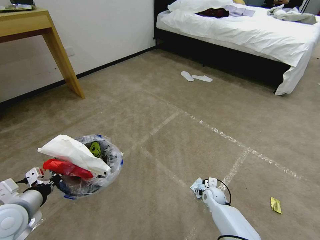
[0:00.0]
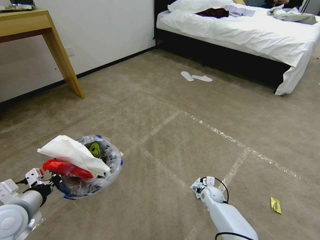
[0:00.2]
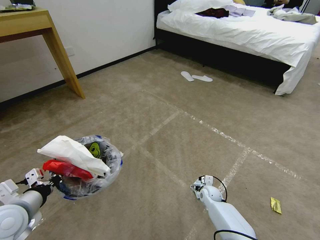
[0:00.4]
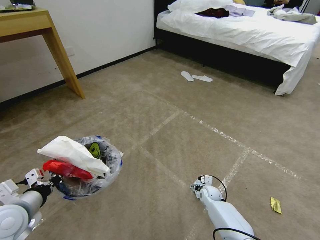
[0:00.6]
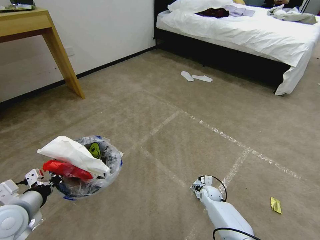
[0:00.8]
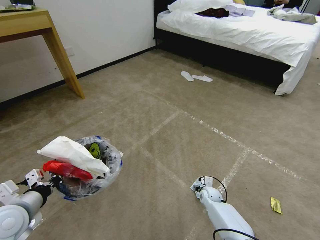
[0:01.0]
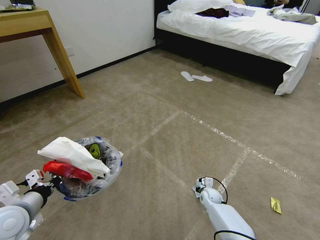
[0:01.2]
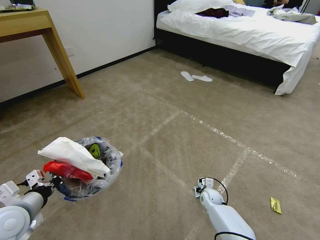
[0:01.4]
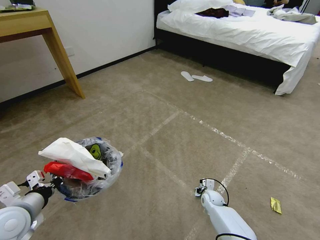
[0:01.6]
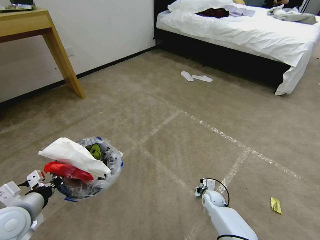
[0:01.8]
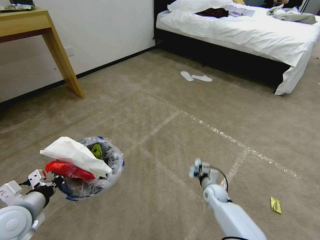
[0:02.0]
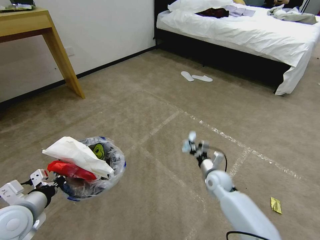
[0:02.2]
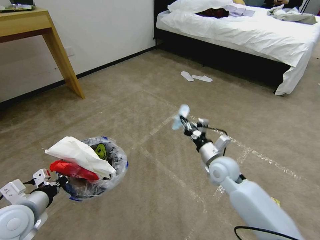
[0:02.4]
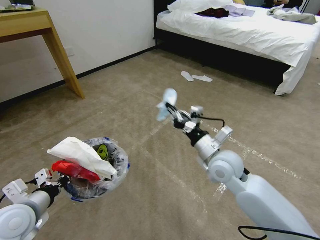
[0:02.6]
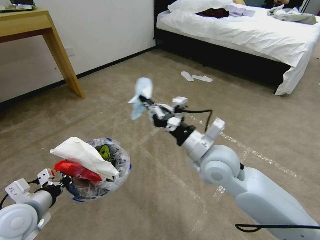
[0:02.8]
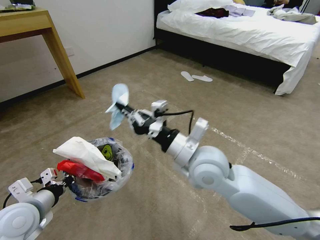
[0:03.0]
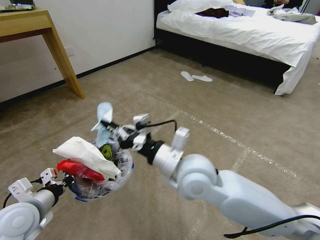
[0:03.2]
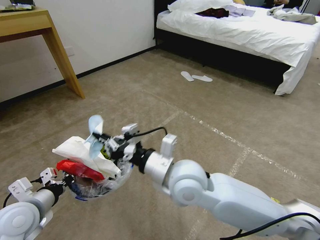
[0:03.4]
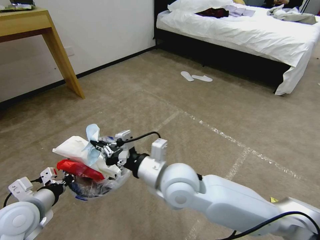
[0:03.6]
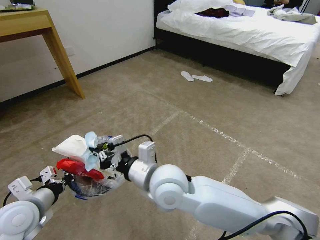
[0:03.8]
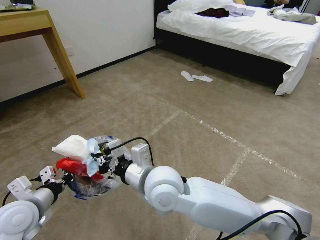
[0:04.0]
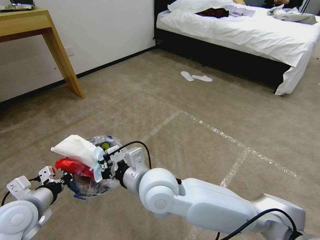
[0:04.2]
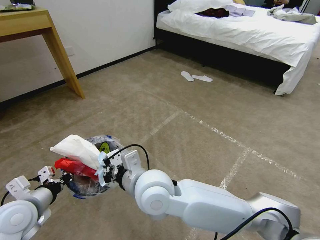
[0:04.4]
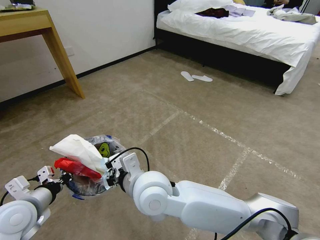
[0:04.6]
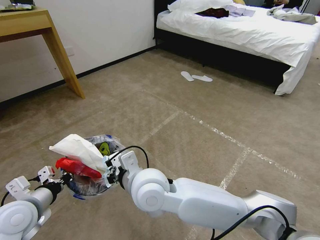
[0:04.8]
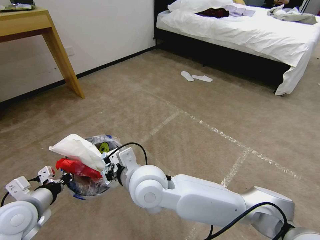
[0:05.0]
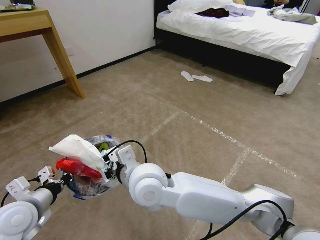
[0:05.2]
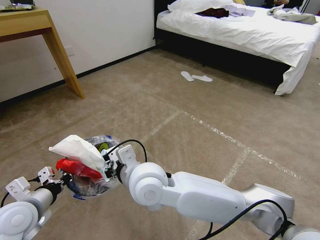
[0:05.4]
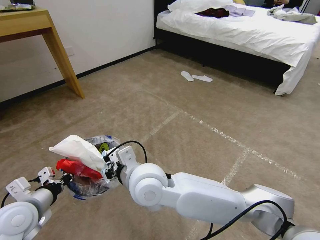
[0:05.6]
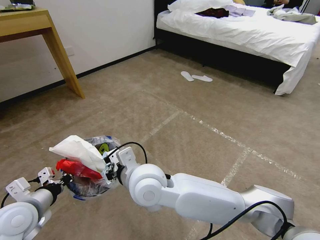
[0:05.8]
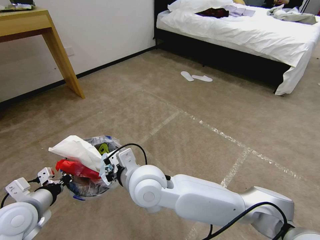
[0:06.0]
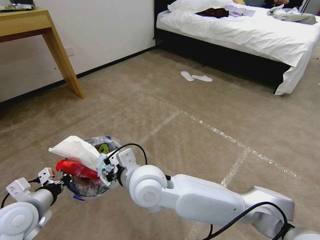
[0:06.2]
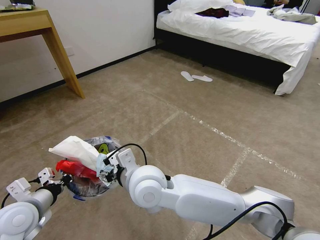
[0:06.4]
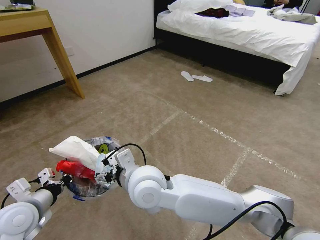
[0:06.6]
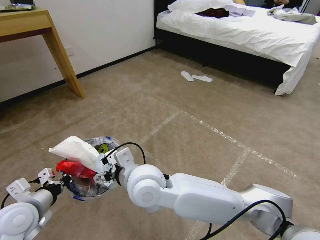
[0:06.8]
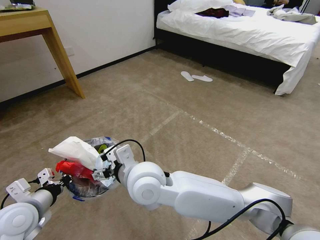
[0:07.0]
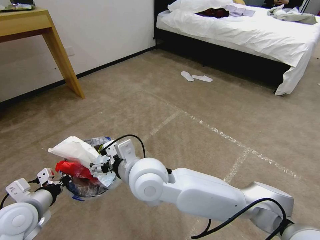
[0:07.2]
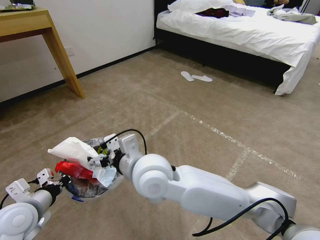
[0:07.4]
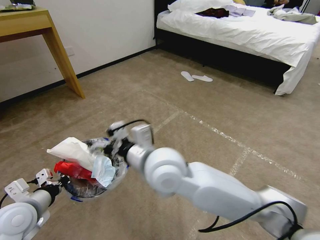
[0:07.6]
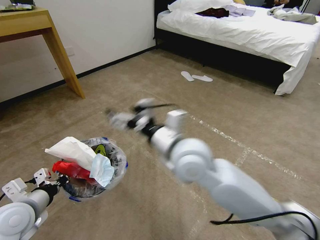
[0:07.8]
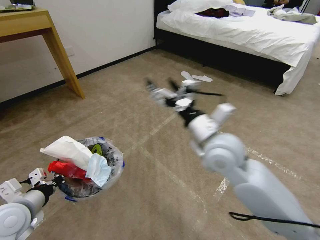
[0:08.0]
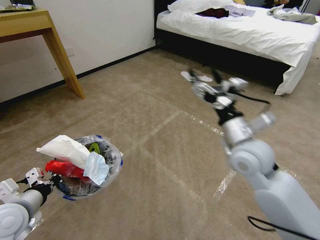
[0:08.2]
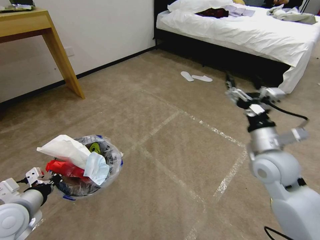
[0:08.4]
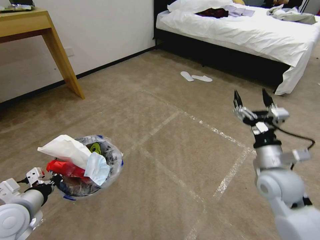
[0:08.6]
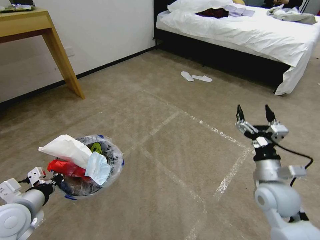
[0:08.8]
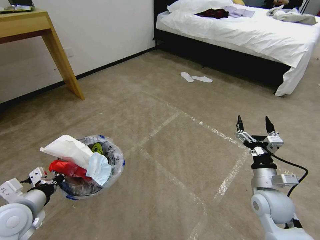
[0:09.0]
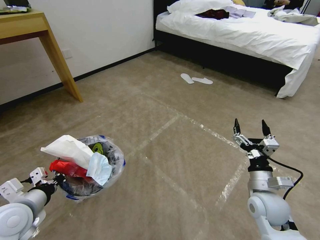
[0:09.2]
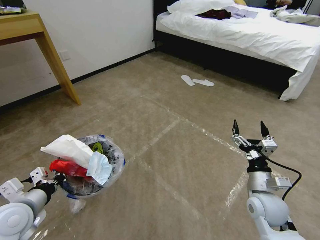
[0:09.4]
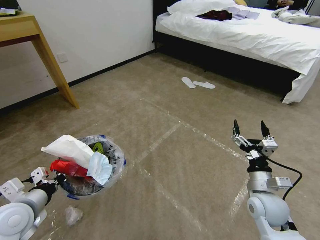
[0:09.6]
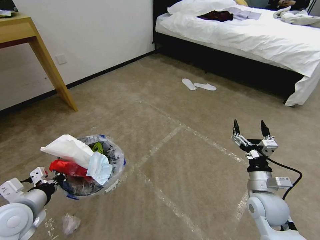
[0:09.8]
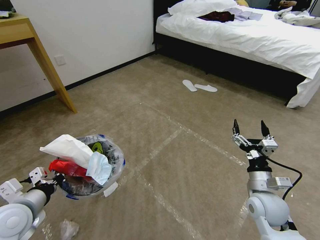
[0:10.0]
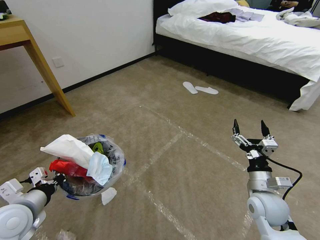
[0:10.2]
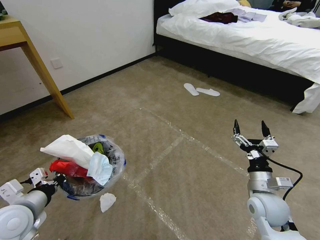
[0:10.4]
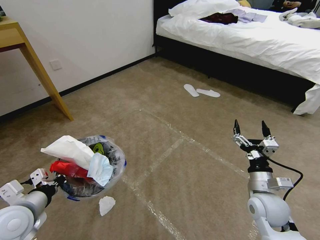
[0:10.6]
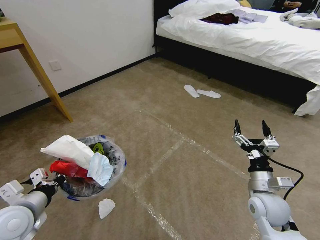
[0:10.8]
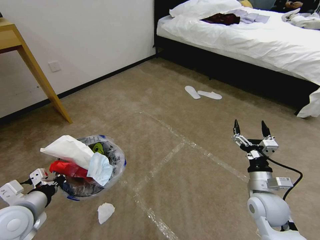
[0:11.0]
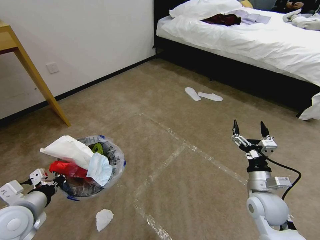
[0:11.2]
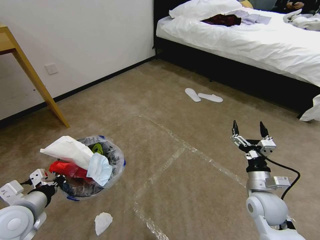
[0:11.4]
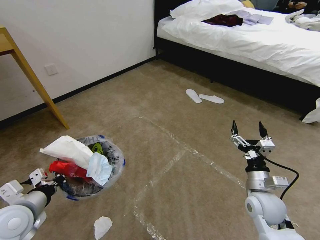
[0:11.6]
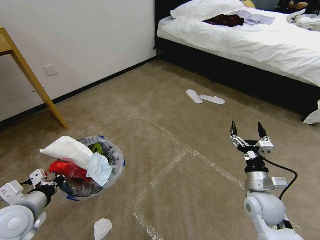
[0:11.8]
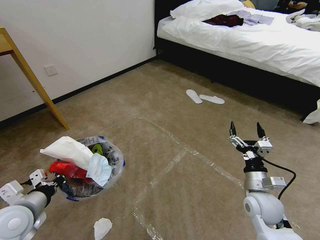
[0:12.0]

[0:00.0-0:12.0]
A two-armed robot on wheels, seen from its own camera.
Task of the whole recording: Pick up the trash bin and place the garbage on the floor into it.
0:00.0 to 0:01.6: The right gripper closes its fingers.
0:01.6 to 0:03.0: The right gripper goes some 40 cm upward.
0:03.0 to 0:04.4: The right gripper shifts about 15 cm to the left.
0:04.4 to 0:06.0: The grippers stay close to where they were, moving slightly.
0:06.0 to 0:07.6: The right gripper travels upward by approximately 5 cm, and opens.
0:07.6 to 0:09.0: The right gripper is displaced to the right and downward by approximately 35 cm.

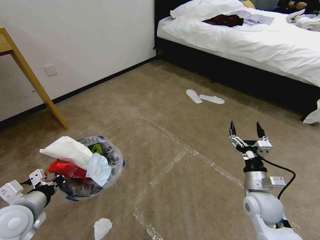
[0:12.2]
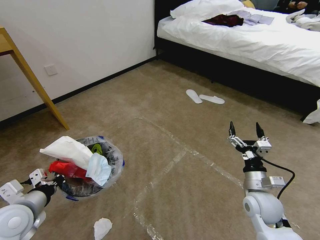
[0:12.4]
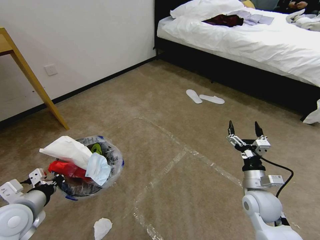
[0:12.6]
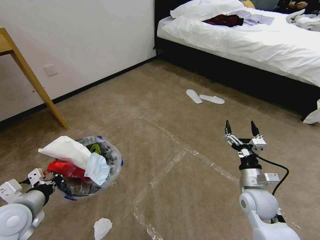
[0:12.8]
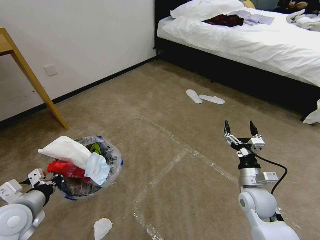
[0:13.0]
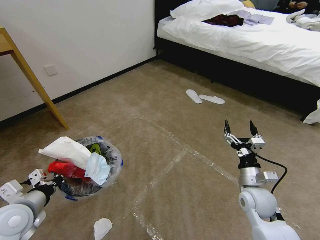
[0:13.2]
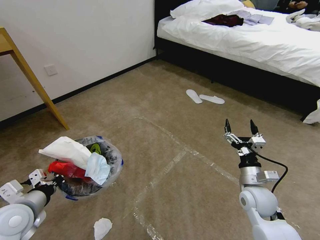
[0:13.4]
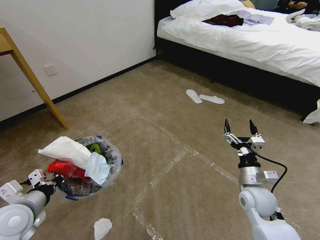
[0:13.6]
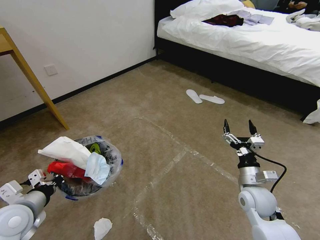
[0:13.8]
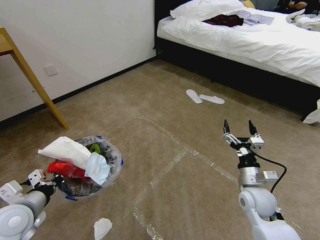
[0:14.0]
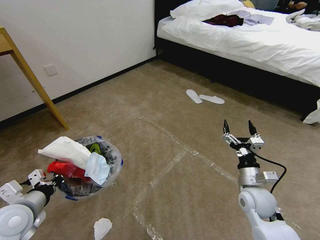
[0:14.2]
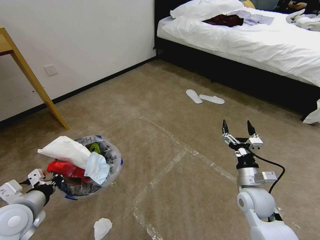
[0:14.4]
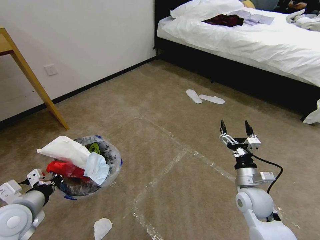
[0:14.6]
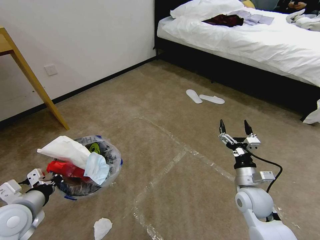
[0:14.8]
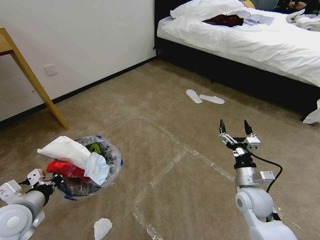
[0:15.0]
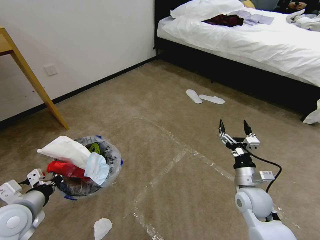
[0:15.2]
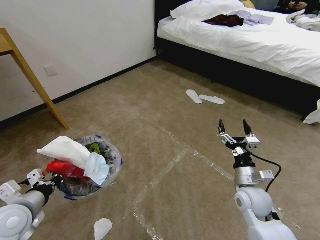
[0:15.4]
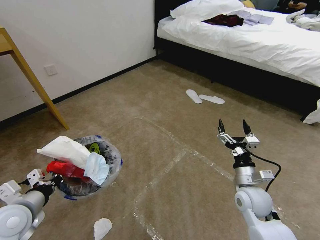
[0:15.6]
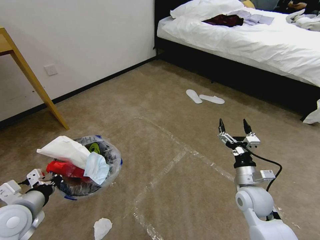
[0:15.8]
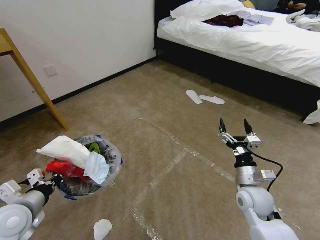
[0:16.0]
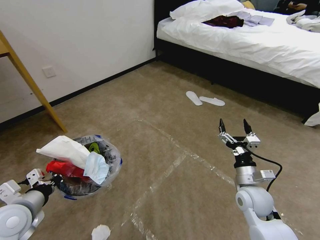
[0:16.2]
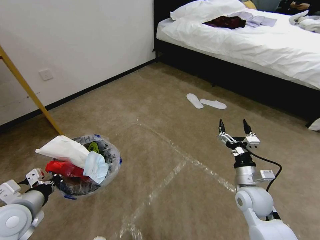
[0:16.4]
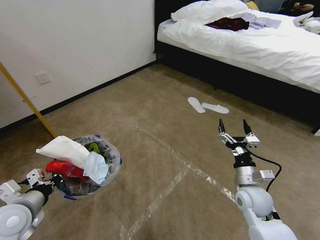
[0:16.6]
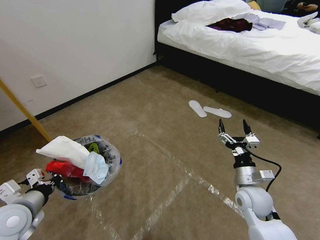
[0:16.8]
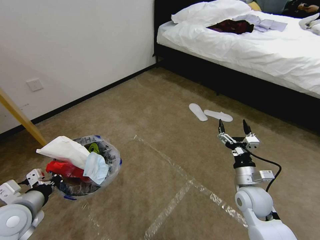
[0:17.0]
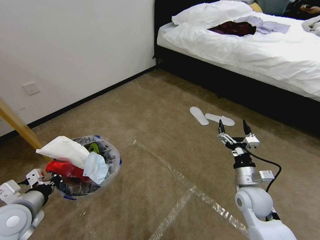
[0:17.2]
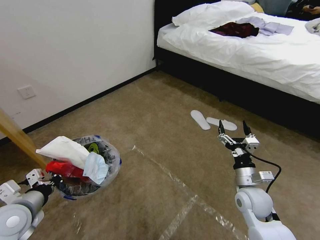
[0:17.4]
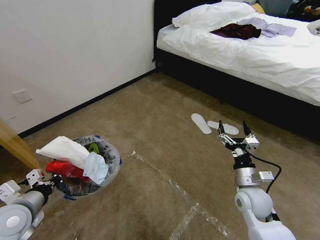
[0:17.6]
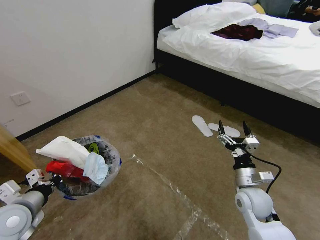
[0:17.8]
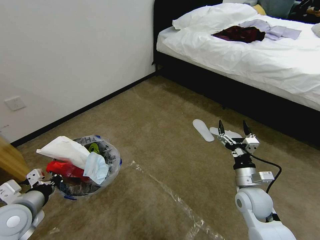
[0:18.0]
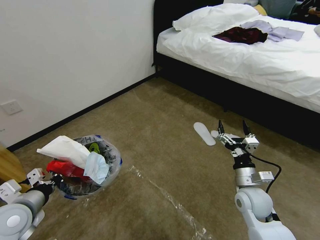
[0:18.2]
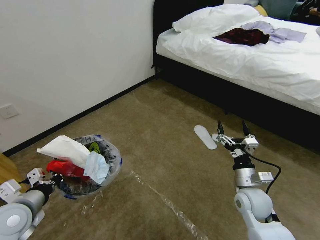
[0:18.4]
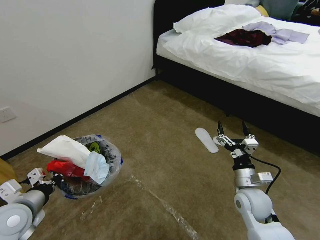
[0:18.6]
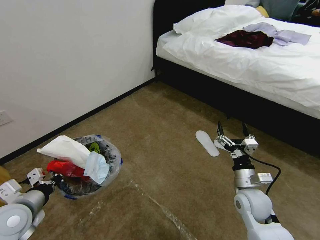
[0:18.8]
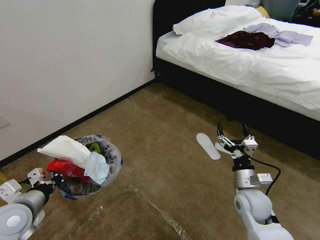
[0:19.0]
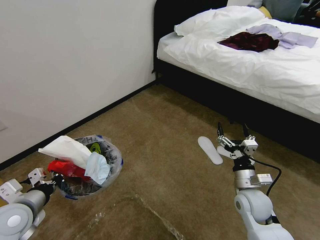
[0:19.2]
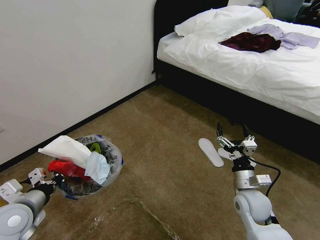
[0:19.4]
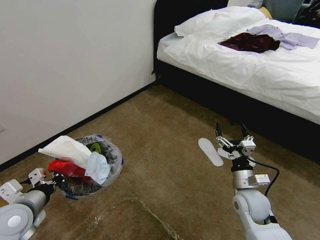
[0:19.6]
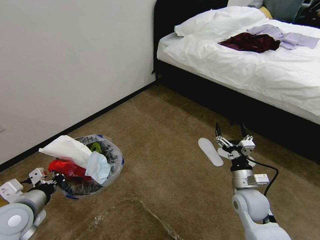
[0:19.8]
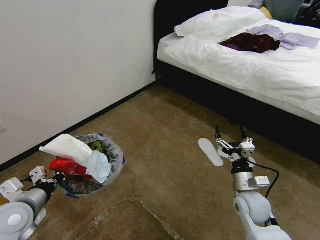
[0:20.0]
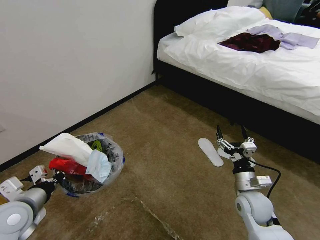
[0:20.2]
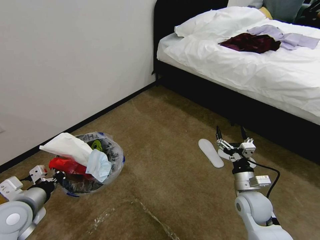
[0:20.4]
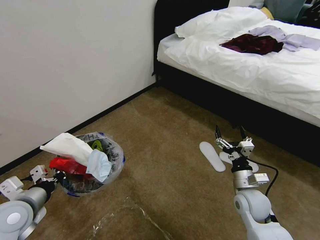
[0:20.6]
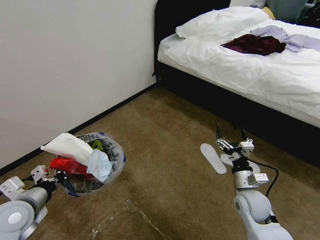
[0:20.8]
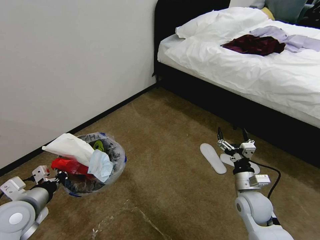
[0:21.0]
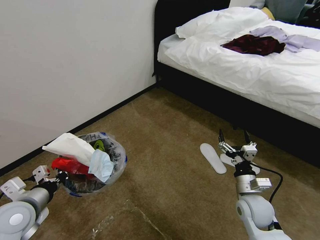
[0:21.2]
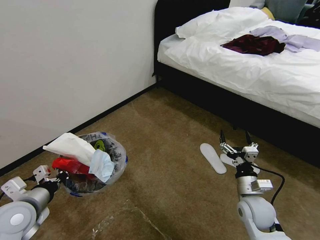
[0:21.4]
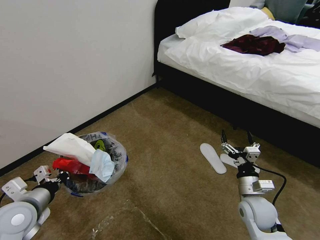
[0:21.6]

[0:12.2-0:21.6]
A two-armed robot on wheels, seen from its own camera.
Task of the whole recording: Pick up the trash bin and place the garbage on the floor into it.
0:12.2 to 0:15.4: There are only small adjustments of the grippers.
0:20.0 to 0:21.6: The grippers move only a little.

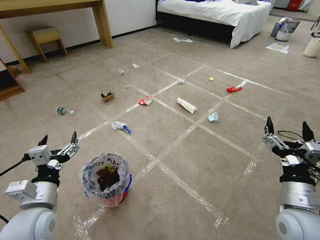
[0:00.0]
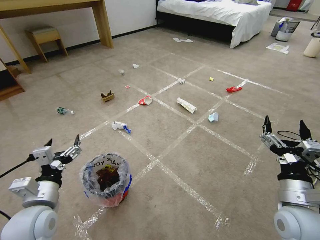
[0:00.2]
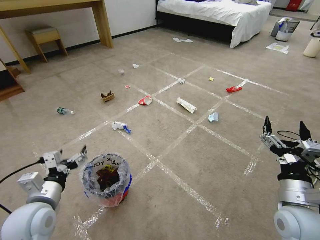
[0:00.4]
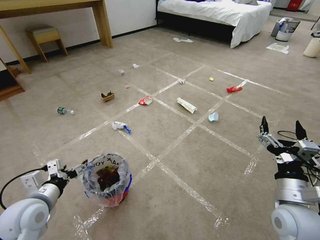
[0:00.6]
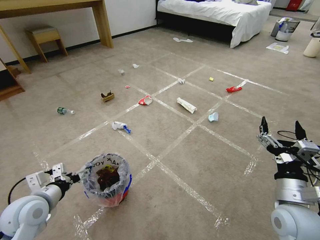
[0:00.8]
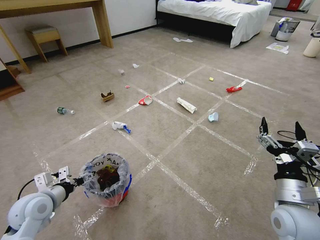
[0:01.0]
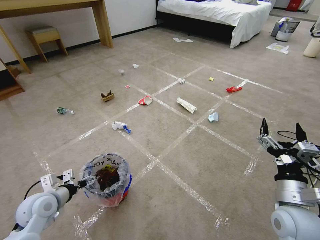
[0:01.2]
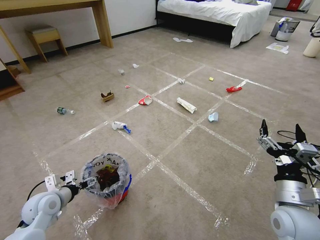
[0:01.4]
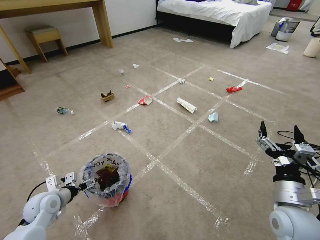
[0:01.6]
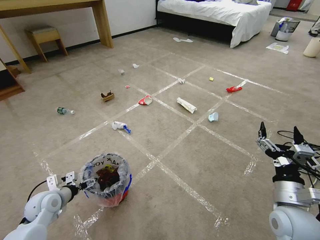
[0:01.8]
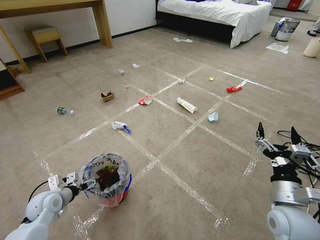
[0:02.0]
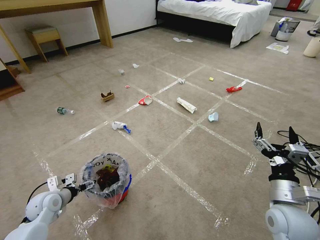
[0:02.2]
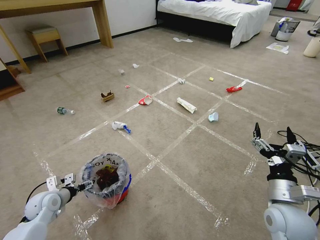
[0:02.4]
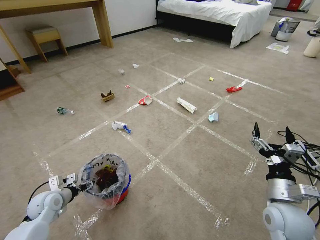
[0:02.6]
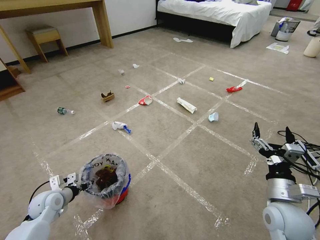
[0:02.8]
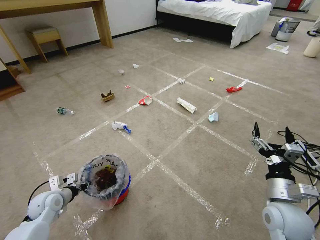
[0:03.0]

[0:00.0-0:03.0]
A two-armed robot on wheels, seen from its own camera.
Task of the whole recording: Pick up the trash bin and place the garbage on the floor into it.
0:01.6 to 0:03.0: The left gripper closes its fingers.
